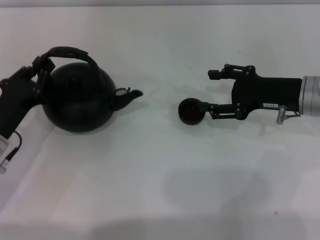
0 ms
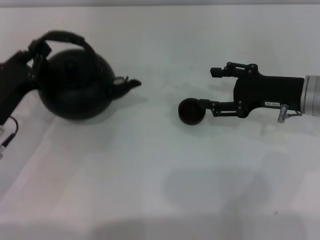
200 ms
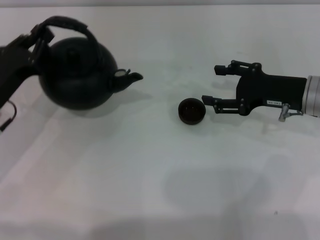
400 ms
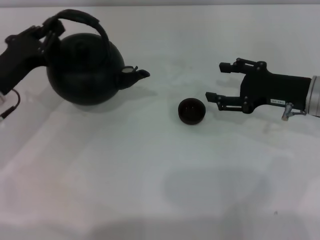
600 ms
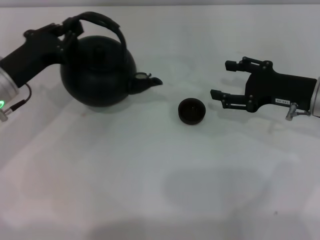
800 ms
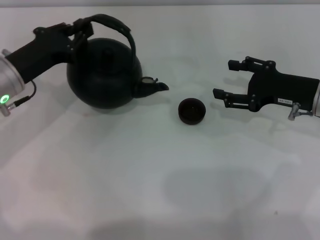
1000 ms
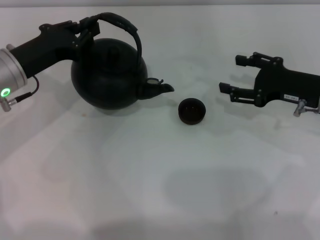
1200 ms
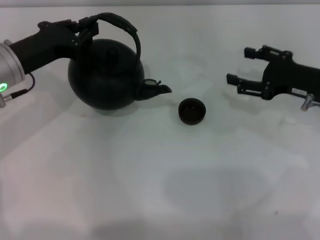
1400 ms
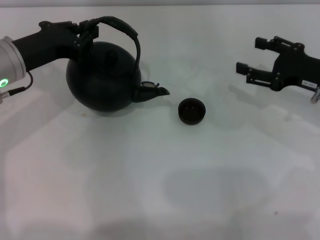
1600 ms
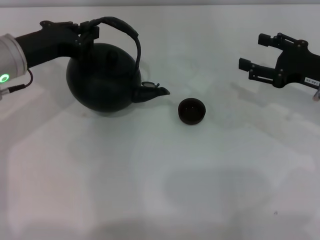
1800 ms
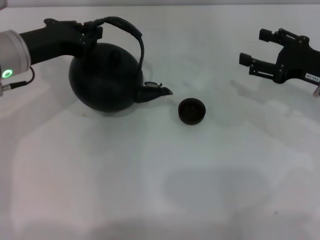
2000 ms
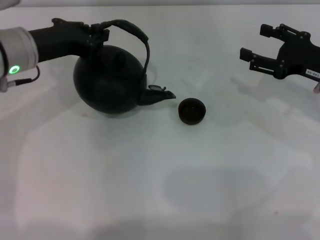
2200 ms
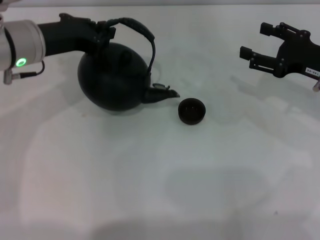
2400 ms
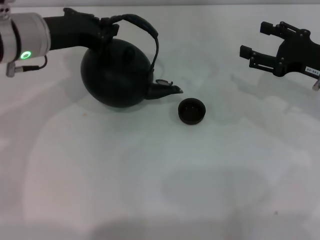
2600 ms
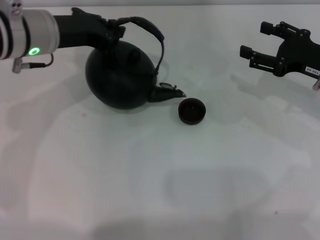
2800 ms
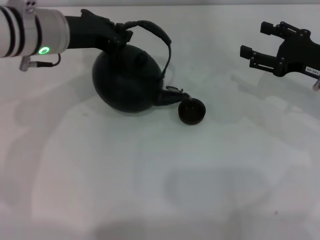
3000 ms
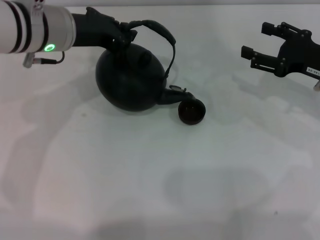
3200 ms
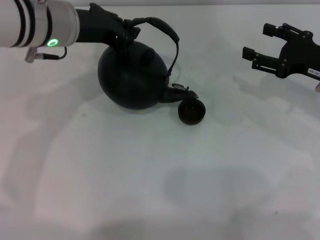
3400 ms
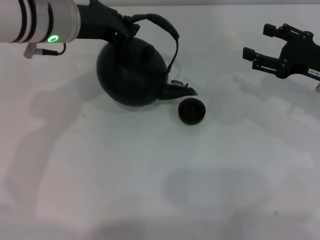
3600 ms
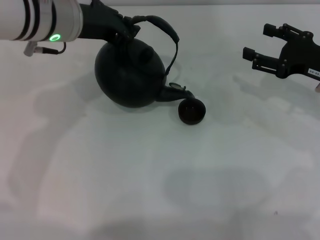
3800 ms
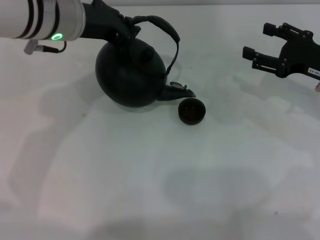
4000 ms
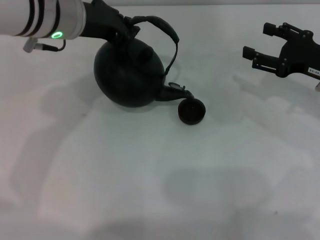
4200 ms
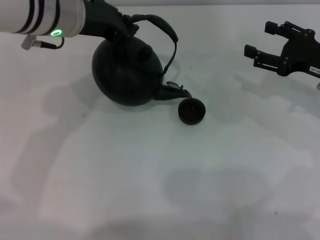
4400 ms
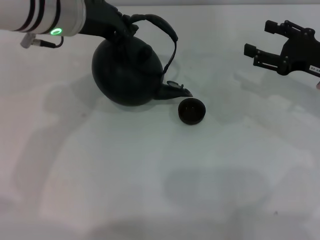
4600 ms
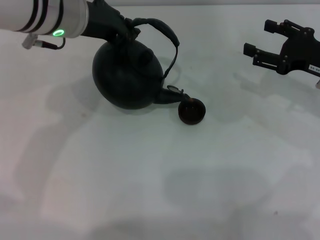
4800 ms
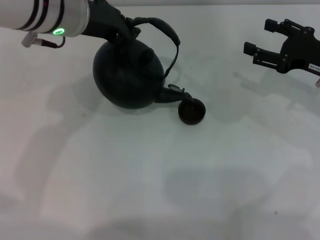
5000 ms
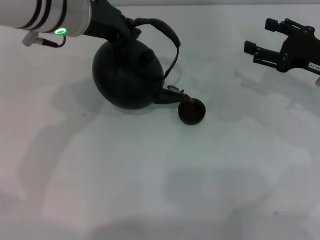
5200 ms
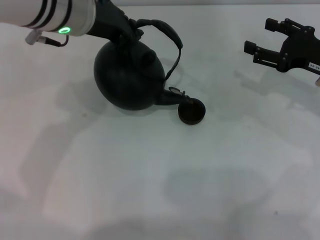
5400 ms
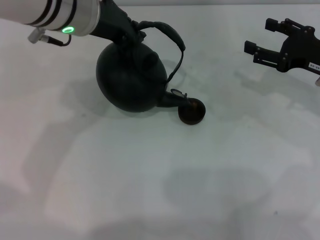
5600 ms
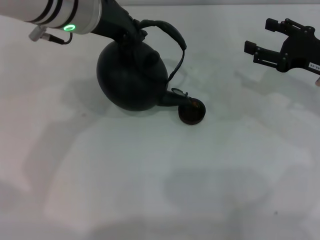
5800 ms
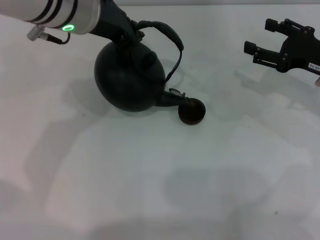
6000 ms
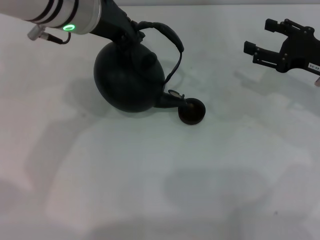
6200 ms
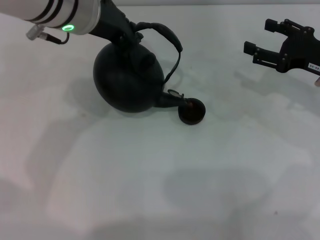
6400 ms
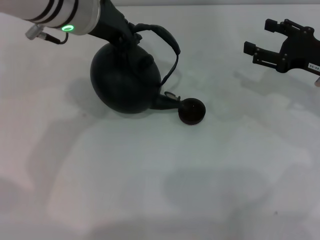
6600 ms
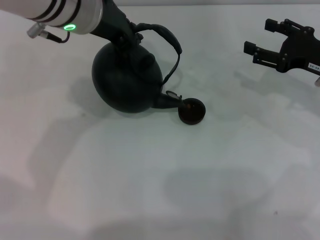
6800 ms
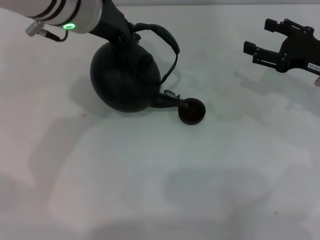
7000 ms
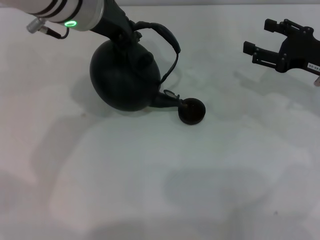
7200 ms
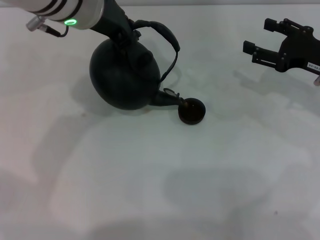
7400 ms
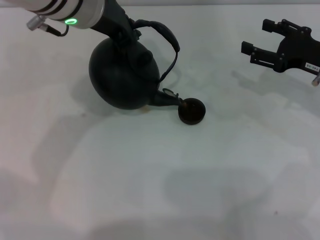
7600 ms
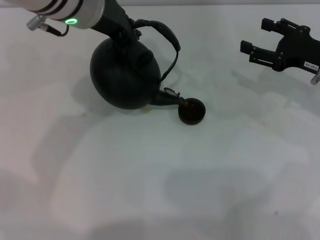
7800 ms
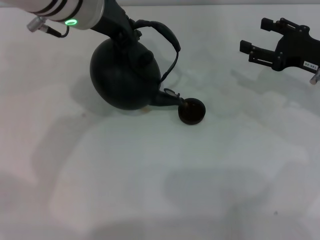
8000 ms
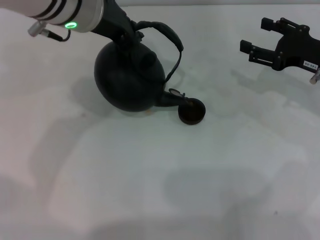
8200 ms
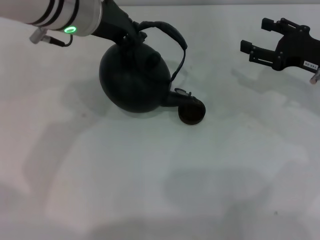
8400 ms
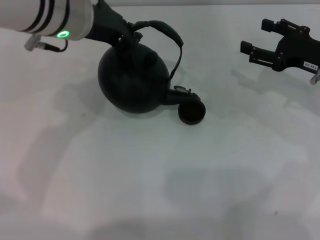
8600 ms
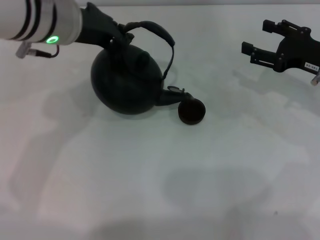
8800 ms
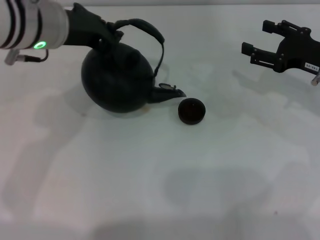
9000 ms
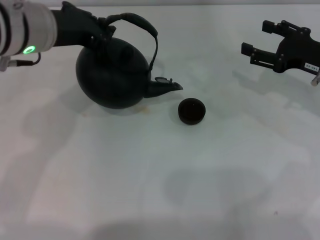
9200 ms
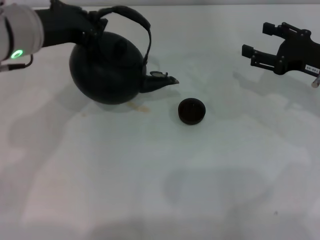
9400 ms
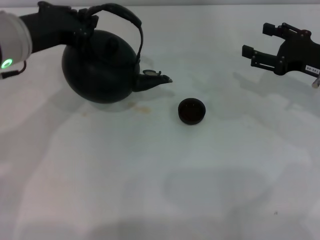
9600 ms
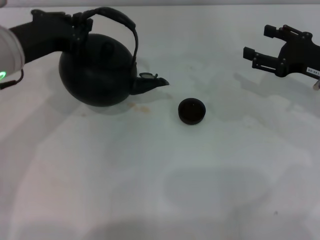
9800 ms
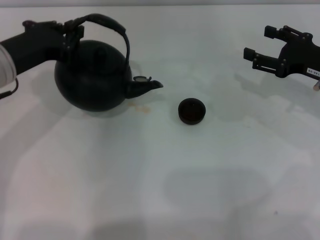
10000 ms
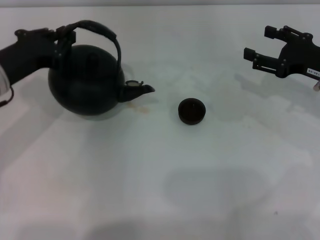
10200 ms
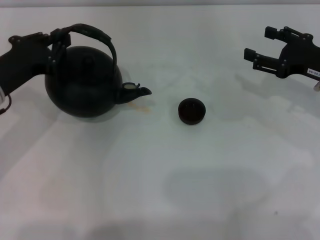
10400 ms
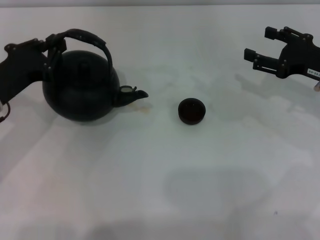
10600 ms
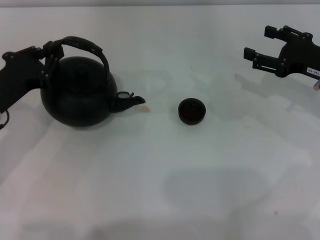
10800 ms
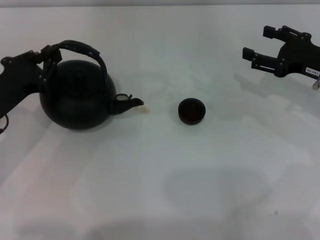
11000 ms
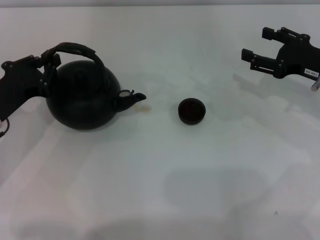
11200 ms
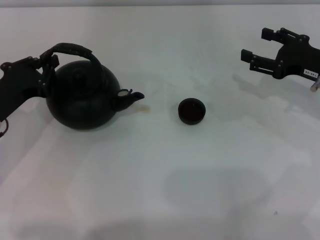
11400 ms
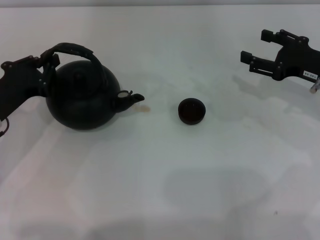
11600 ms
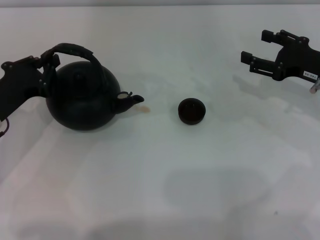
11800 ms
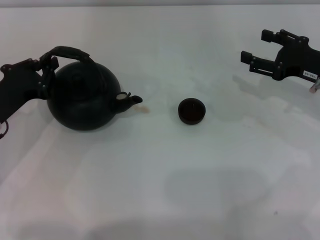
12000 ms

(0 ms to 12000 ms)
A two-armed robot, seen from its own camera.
Task of the whole recording: Grasp the handle of the teapot with one hand and pour tea into the teacup.
Step, 0 ms - 2400 ms: Pick up the teapot with the left gripper.
Step, 2600 ms - 9200 ms: Pour tea into the teacup with the left gripper.
0 ms - 1600 ms: The left gripper goes approximately 15 cm upward and forward. Meanwhile the right gripper moves to the right, about 5 cm.
1600 ms - 3000 ms: The left gripper travels to the right by about 5 cm.
3000 ms - 4400 ms: The left gripper moves approximately 5 cm.
4400 ms - 7600 ms: The grippers make only small movements.
7600 ms - 9000 ms: The left gripper is displaced to the left by about 5 cm.
9000 ms - 10400 ms: The left gripper shifts some 15 cm to the left, downward and backward.
10400 ms - 12000 ms: The left gripper shifts by roughly 5 cm.

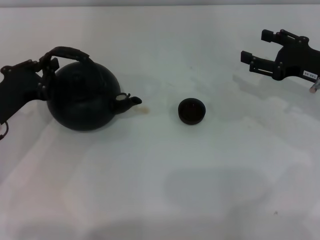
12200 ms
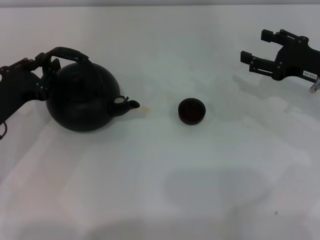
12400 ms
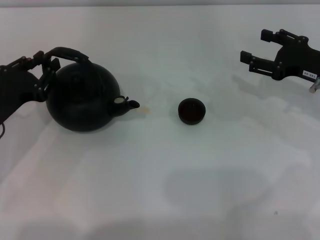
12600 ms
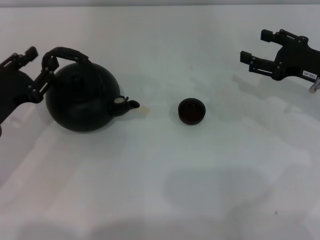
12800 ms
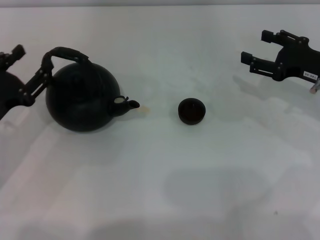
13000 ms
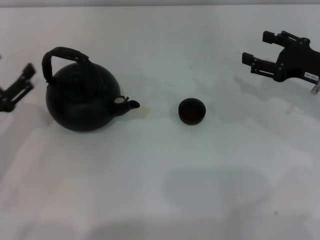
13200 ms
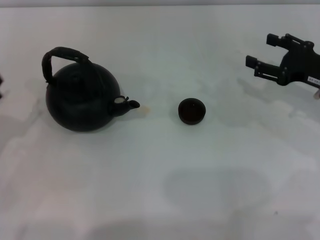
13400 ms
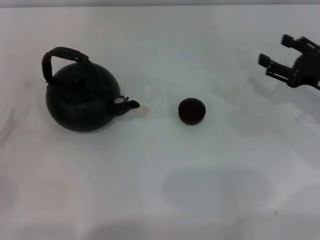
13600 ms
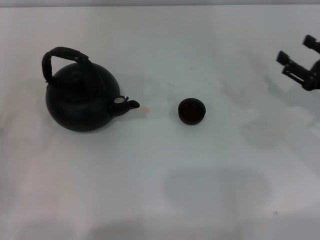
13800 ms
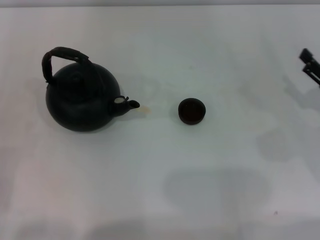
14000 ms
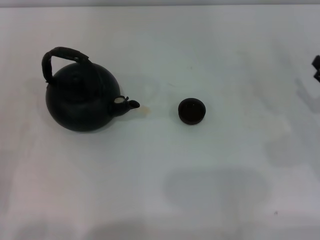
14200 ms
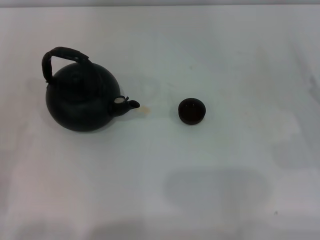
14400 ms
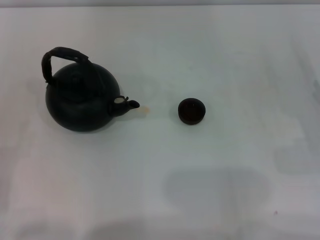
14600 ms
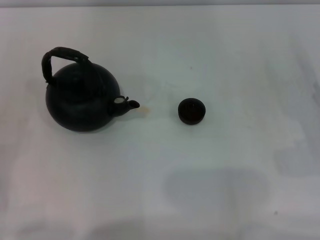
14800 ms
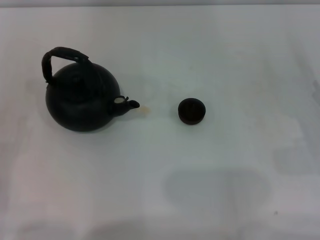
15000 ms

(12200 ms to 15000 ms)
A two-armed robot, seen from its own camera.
Task of the whole recording: Grasp the handle of the teapot with one hand and pour tea into the teacup.
12200 ms - 13600 ms: The left gripper goes approximately 15 cm backward and to the left, and opens up.
13600 ms - 15000 ms: The right gripper shifts some 10 cm backward.
